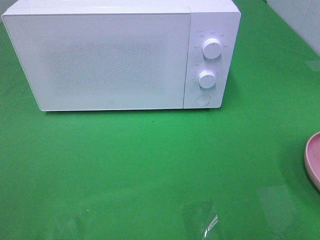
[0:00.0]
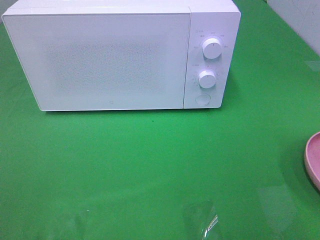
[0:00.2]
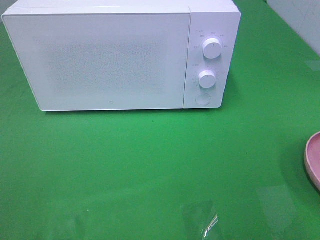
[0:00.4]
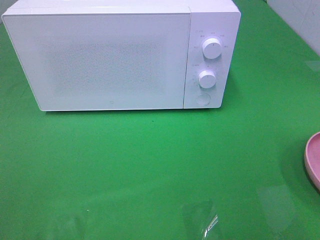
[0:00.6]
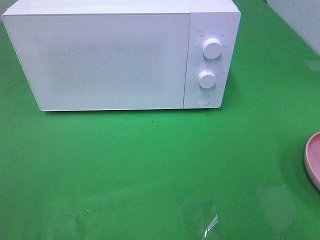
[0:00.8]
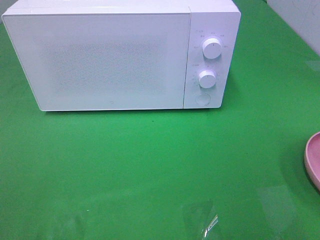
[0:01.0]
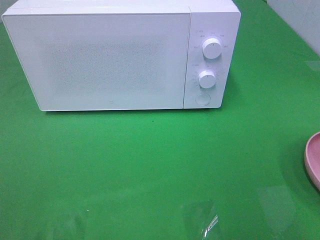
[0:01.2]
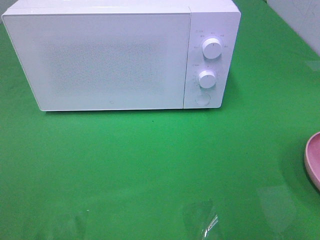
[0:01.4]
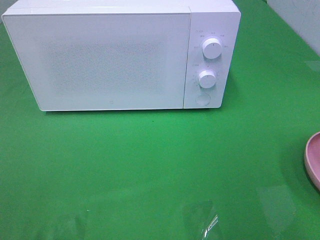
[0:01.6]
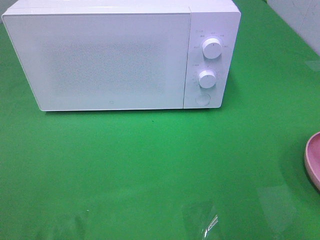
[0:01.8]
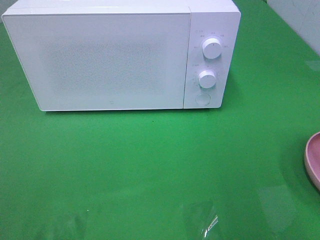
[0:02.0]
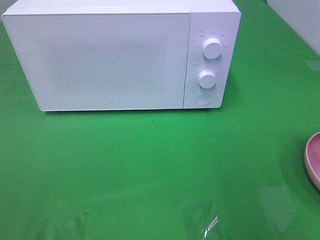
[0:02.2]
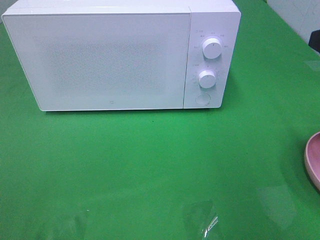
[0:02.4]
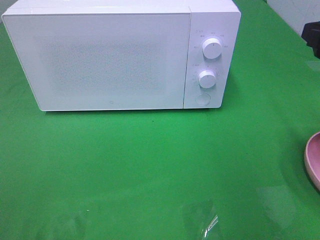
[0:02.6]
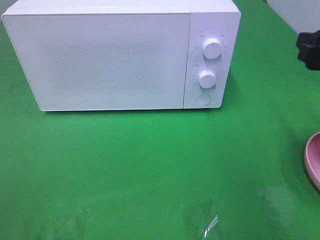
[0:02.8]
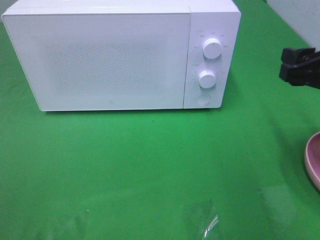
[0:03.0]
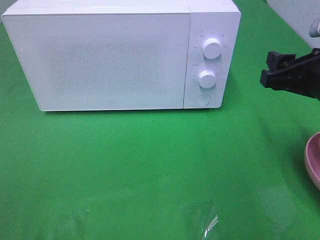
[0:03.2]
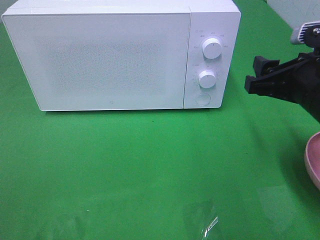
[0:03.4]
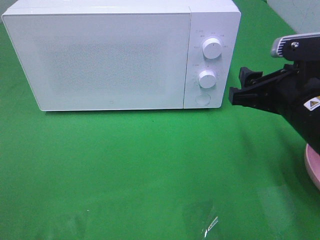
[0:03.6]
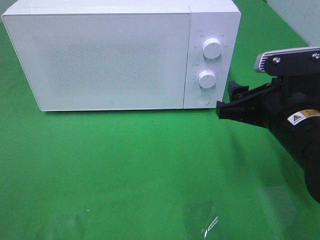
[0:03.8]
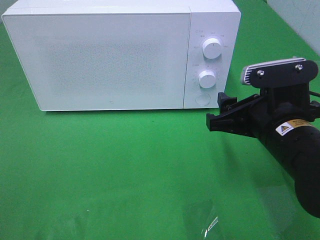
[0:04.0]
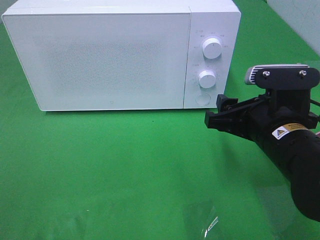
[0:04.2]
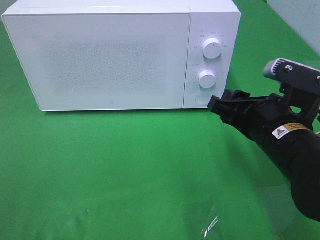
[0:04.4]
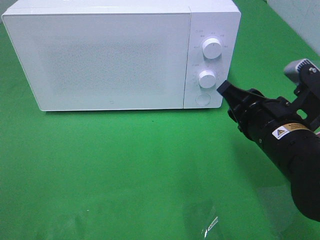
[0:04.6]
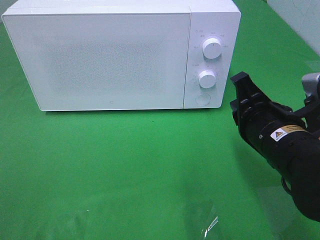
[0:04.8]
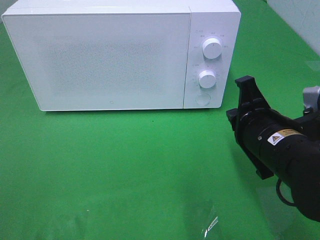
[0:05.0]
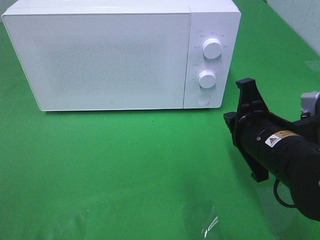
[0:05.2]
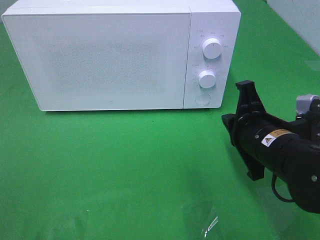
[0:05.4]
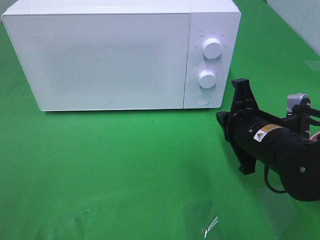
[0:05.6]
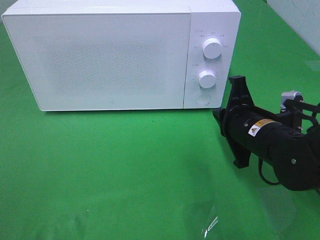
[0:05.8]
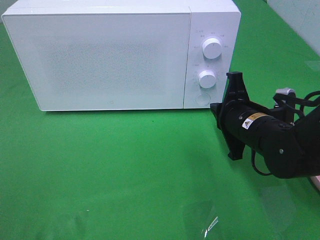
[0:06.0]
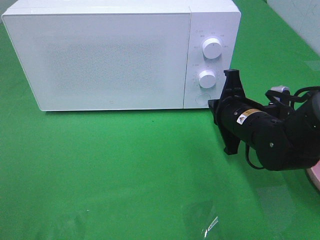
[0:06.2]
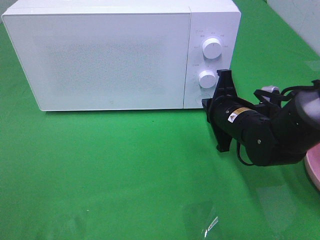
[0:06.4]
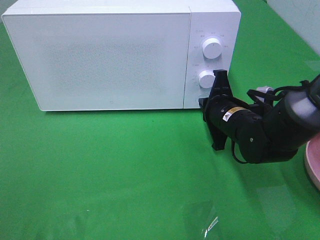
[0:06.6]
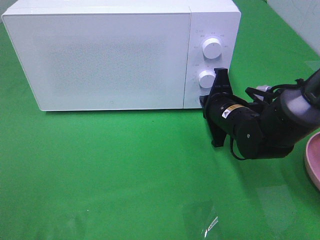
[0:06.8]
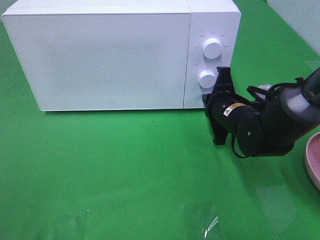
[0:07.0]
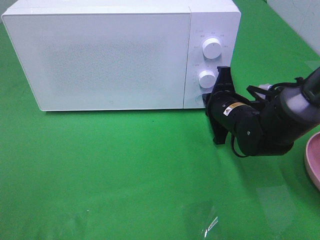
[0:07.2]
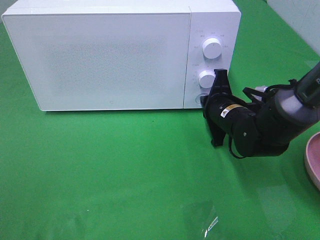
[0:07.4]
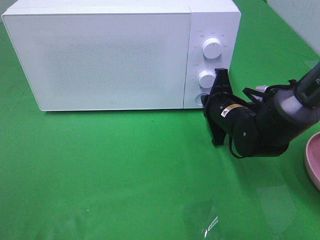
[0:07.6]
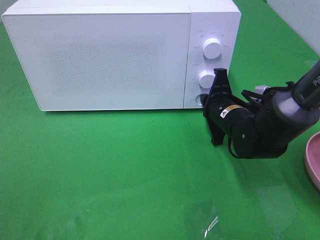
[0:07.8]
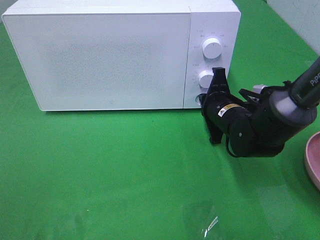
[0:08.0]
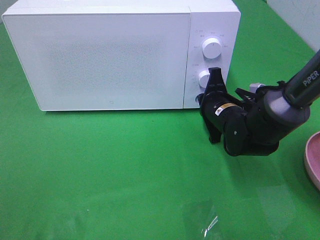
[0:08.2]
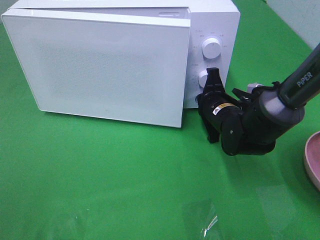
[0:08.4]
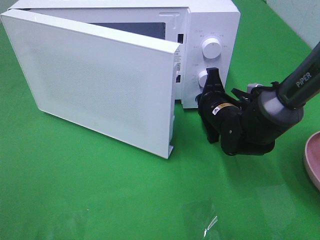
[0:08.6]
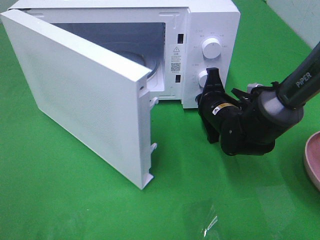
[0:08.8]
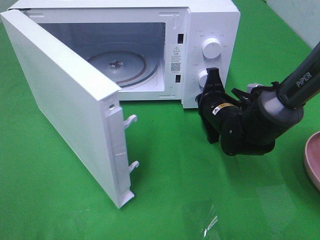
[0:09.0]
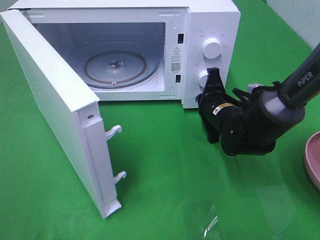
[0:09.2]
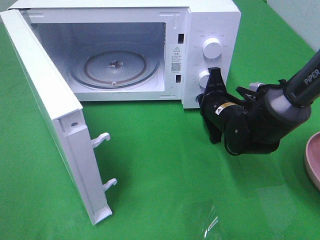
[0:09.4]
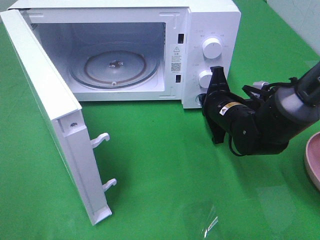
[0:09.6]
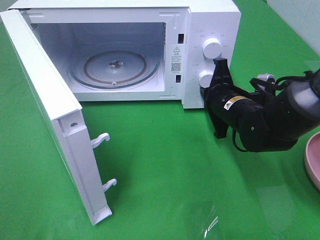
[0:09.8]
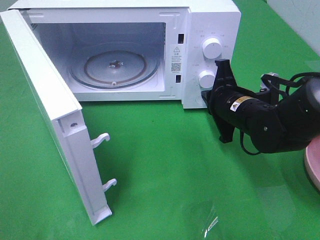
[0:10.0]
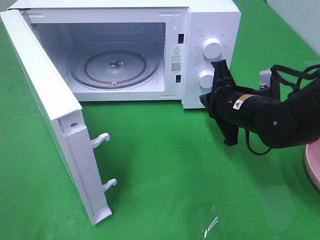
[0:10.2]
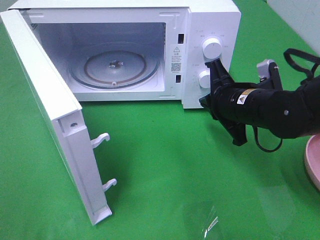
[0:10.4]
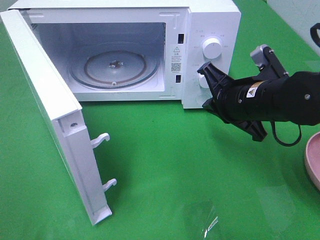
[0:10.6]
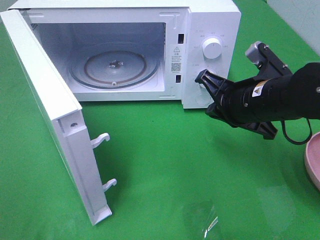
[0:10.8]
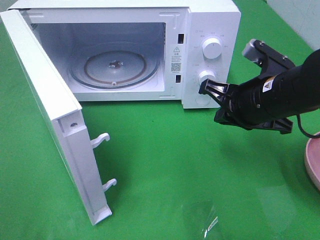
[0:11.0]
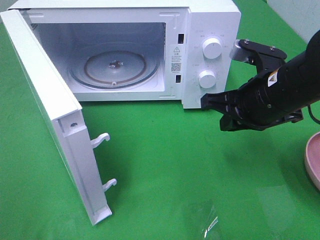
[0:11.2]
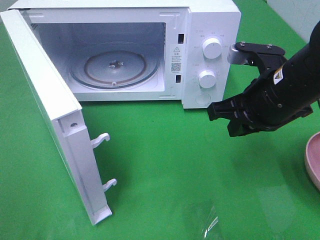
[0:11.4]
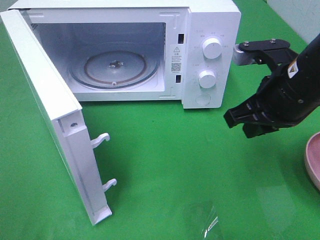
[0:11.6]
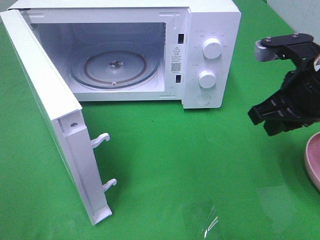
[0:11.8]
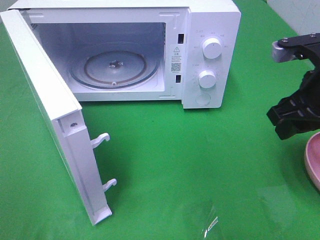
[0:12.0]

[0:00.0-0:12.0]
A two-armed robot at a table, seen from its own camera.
Task of the whole recording: Heat the burger.
Step, 0:00.0 to 0:09.8: Right hand: press the switch.
0:01.6 to 0:03.0: The right gripper travels forward and downward by roughly 15 cm.
0:03.0 to 0:04.4: The right gripper heads to the left and downward, covering approximately 10 cm.
0:04.4 to 0:06.0: The right gripper heads forward and downward, covering approximately 10 cm, and closes.
0:06.0 to 0:07.6: The right gripper travels forward by roughly 5 cm.
0:09.0 to 0:10.4: The right gripper heads upward and backward, covering roughly 10 cm.
0:10.4 to 0:12.0: The right gripper moves to the right and upward, about 10 cm, and opens.

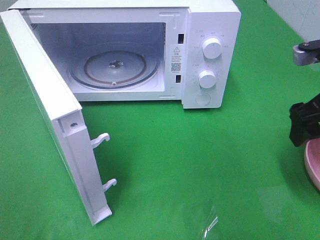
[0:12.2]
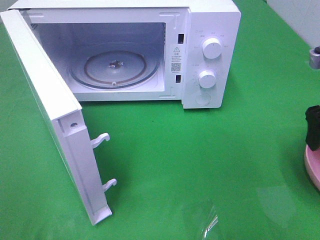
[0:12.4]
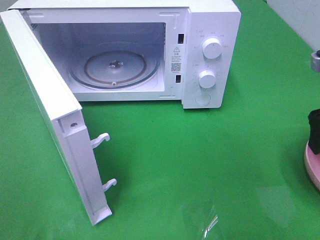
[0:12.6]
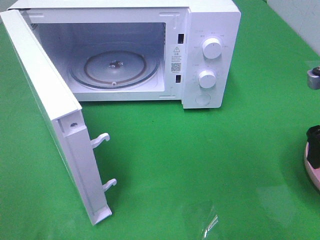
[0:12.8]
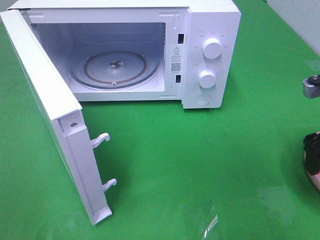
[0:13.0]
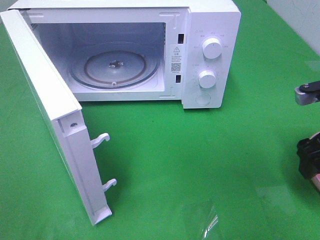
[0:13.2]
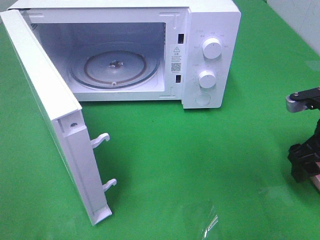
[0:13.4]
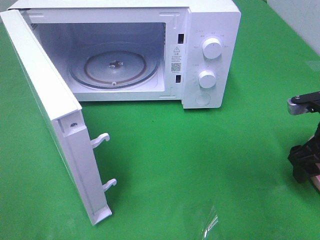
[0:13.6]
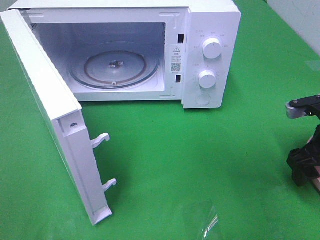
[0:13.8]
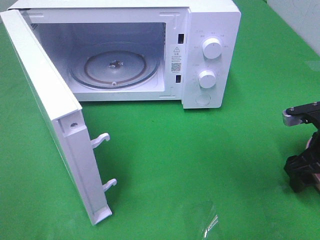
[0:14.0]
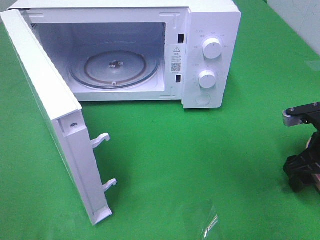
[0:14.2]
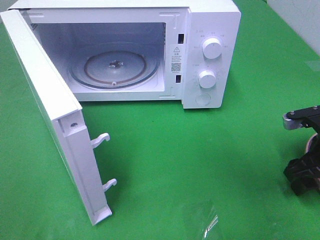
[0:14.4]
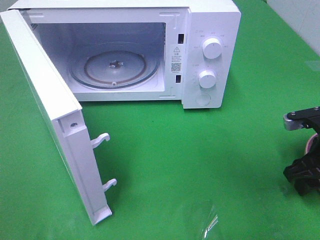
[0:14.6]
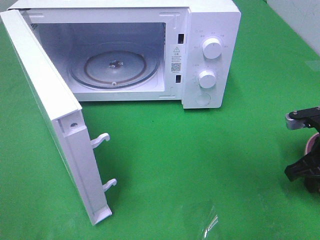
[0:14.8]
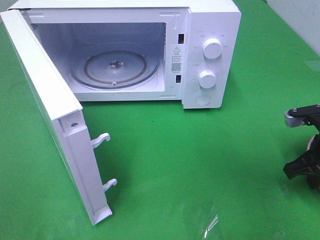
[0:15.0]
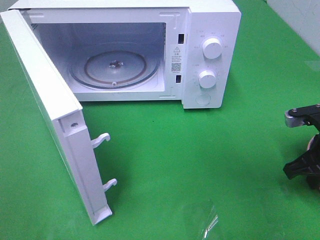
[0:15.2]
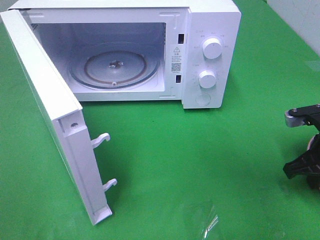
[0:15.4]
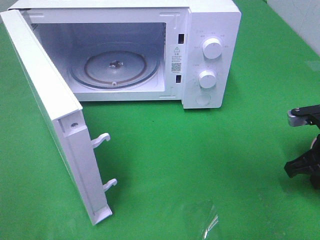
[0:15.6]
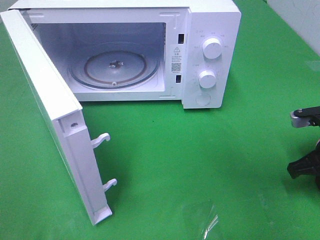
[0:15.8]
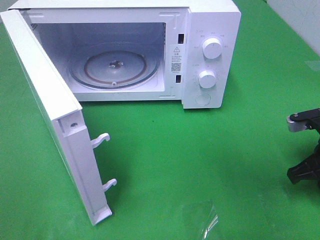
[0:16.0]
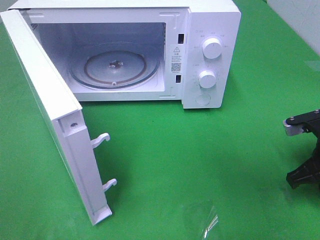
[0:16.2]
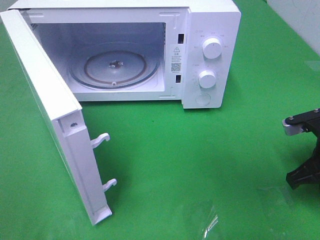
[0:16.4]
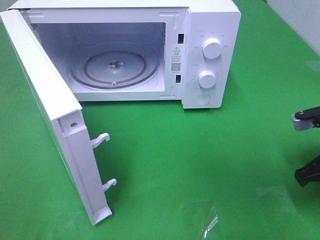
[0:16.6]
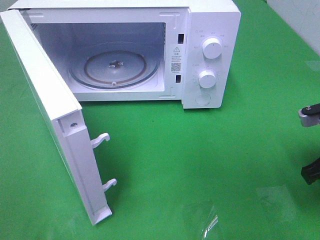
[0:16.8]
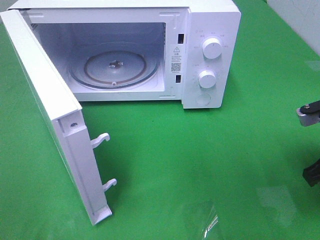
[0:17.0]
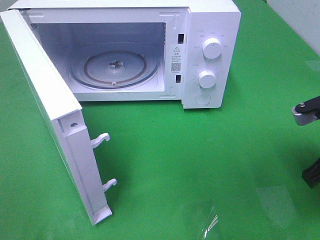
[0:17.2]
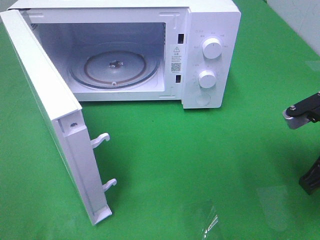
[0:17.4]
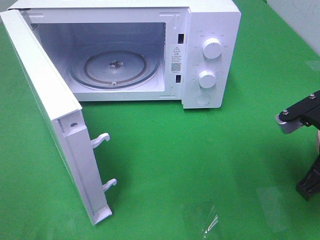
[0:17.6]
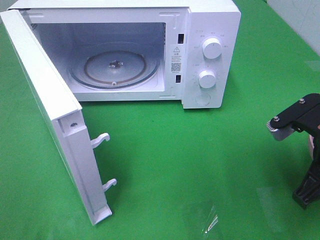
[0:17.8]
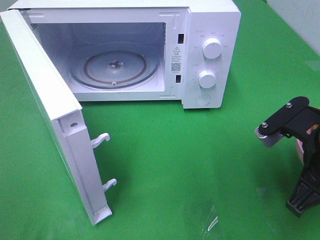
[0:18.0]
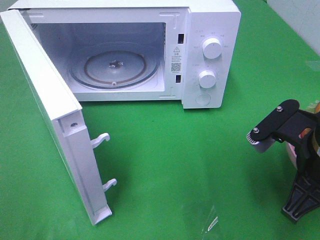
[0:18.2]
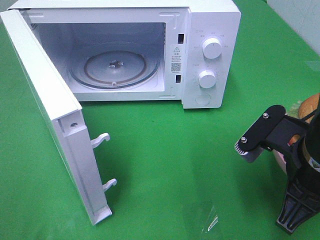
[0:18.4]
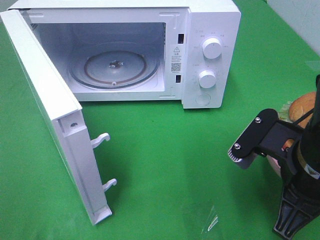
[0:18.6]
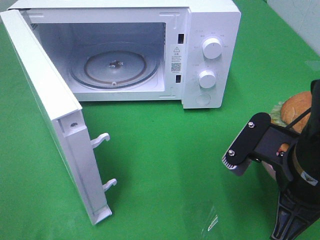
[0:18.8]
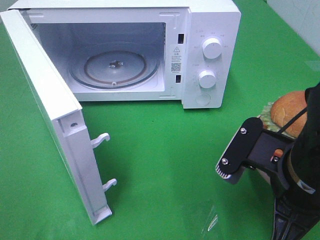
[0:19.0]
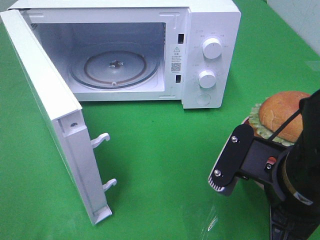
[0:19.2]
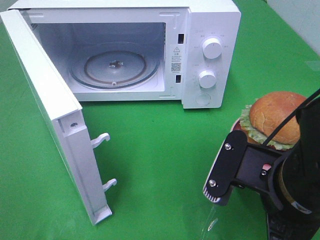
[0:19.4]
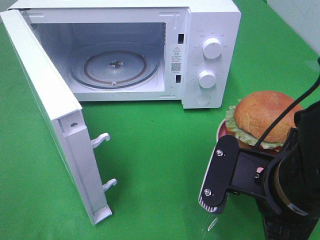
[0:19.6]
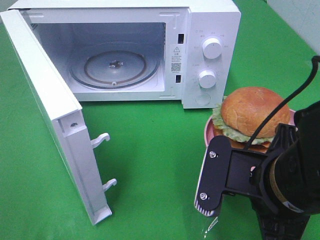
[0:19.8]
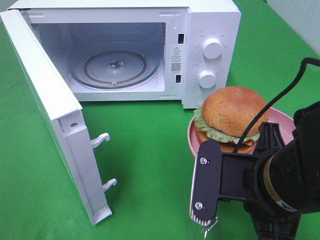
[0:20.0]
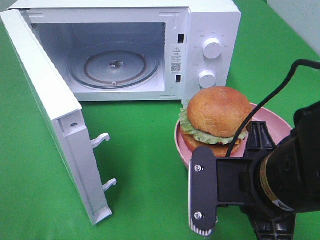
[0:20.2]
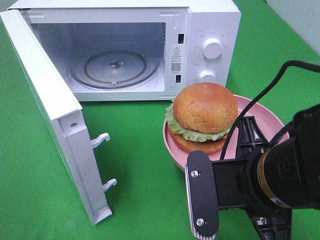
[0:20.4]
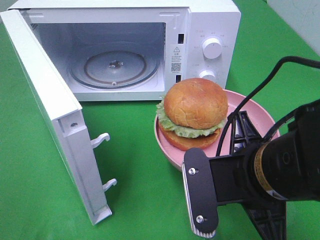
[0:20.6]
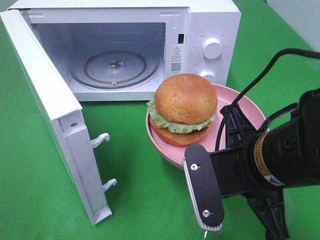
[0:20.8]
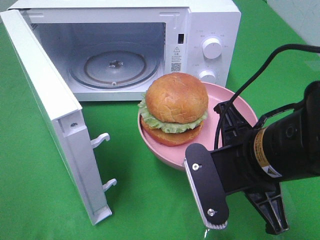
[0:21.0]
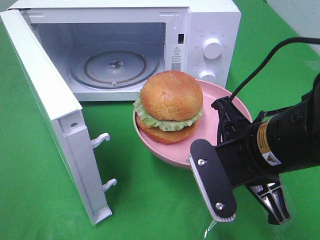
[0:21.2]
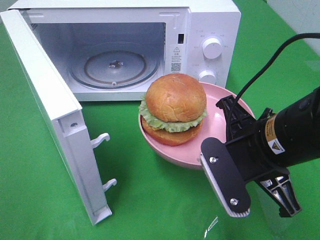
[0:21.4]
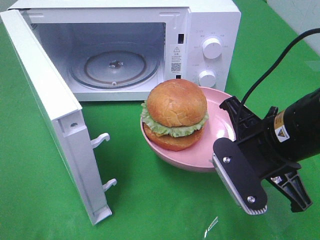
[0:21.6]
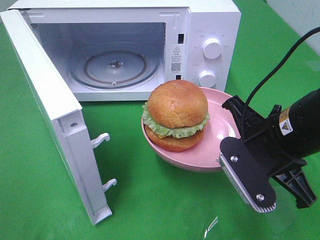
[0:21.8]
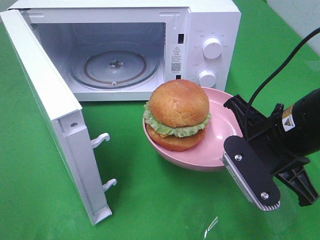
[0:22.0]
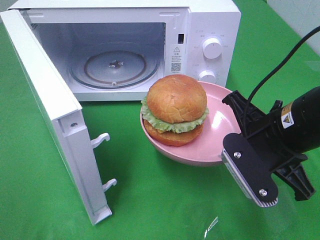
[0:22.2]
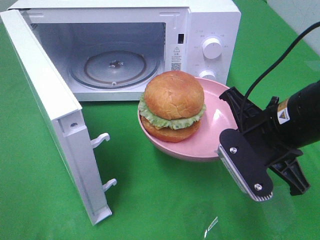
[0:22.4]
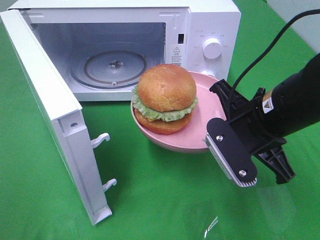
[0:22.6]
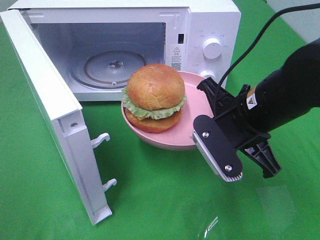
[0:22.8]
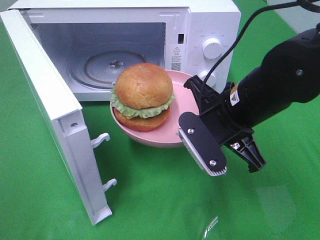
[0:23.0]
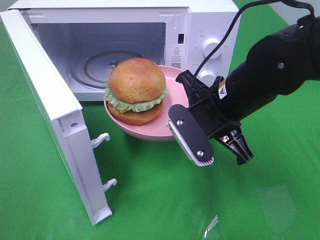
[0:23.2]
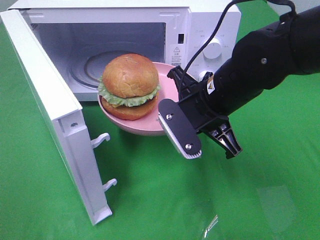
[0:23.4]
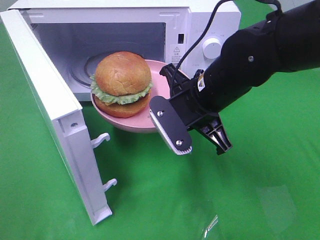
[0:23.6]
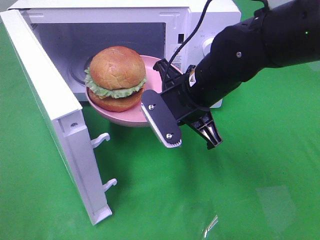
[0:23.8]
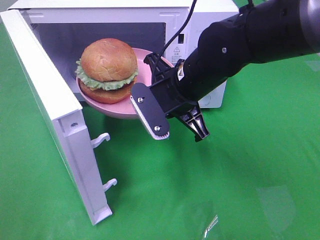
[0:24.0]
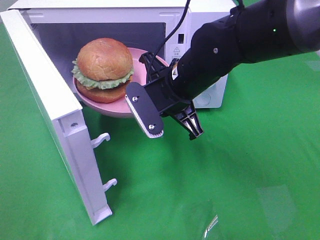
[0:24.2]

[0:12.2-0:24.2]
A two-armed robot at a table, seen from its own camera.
Task of the whole recording: Heat the burger.
Step, 0:12.2 to 0:15.8: Right hand: grab the plate with the hamburger.
0:12.2 to 0:13.8: The right gripper is displaced downward by approximately 10 cm.
0:13.8 to 0:15.2: The right gripper closes its fingers.
0:15.2 to 0:16.6: There are only small adjustments of the grippers.
0:16.6 to 0:18.2: The right gripper shifts some 10 cm to the left and backward.
0:18.2 to 0:19.8: The right gripper is displaced to the left by roughly 5 cm.
0:21.2 to 0:22.6: The right gripper goes some 5 cm forward.
0:22.6 to 0:24.2: The right gripper goes about 15 cm to the left and forward.
